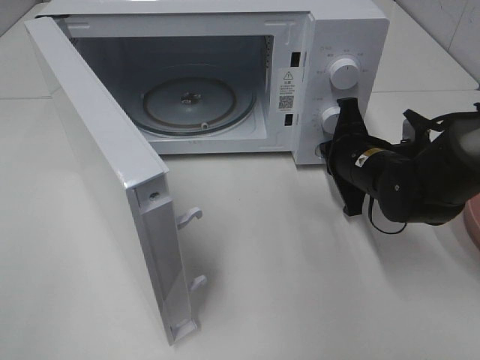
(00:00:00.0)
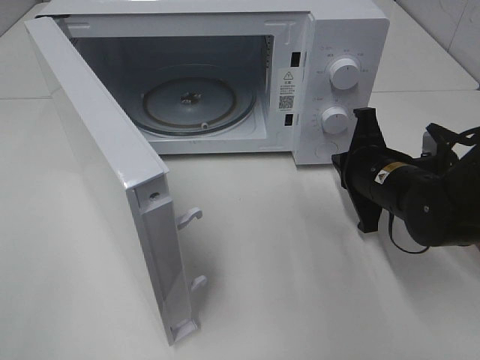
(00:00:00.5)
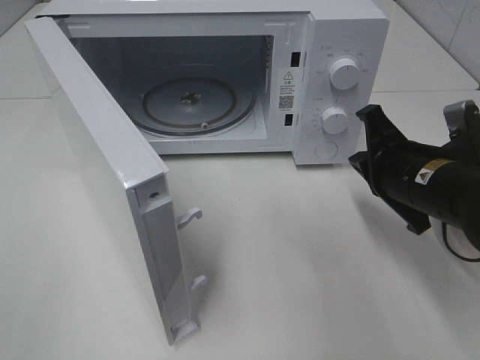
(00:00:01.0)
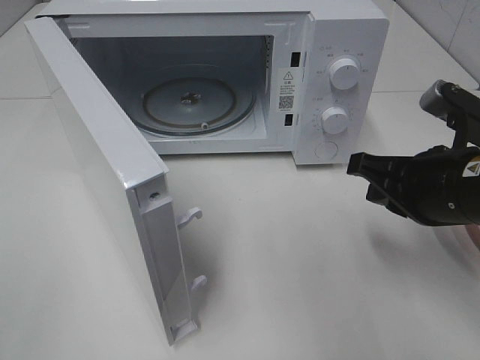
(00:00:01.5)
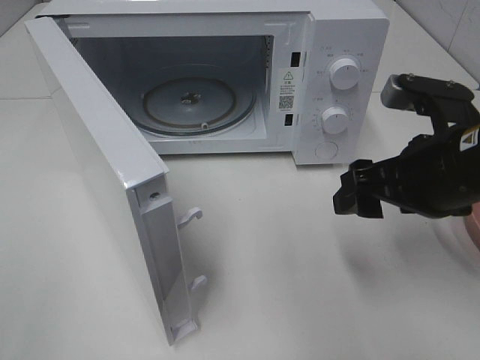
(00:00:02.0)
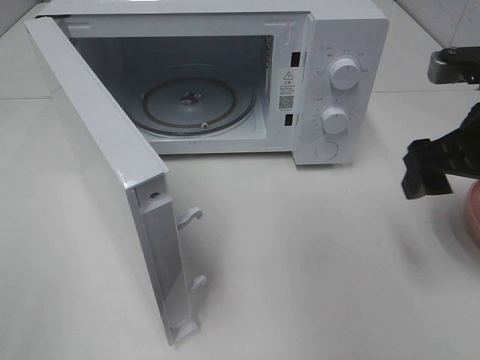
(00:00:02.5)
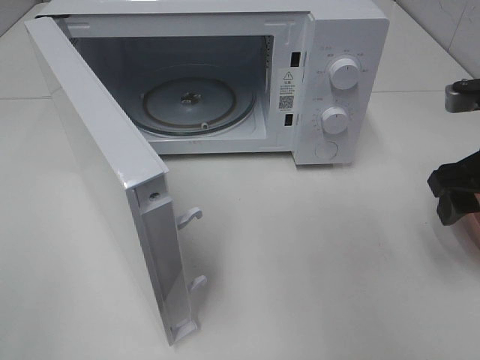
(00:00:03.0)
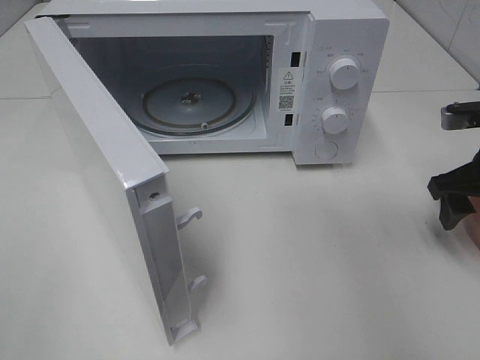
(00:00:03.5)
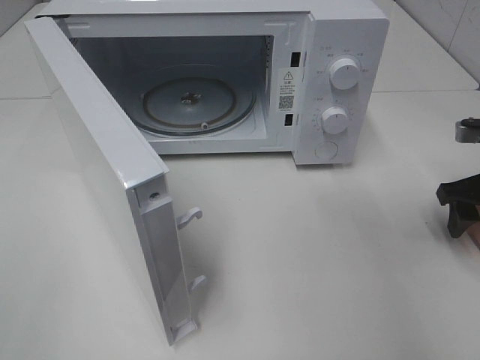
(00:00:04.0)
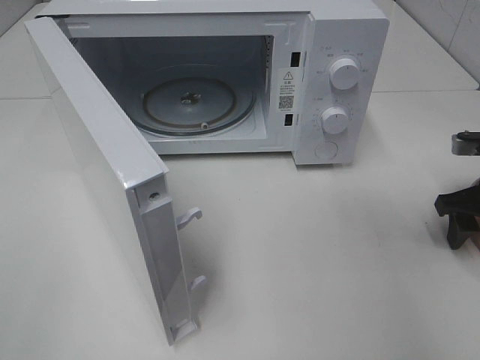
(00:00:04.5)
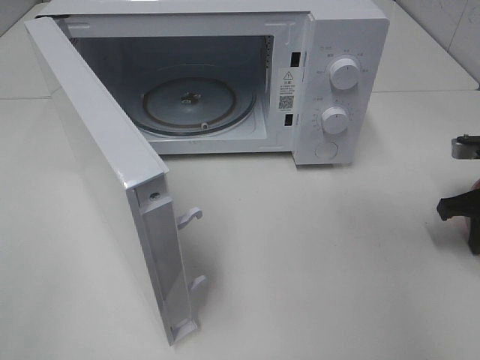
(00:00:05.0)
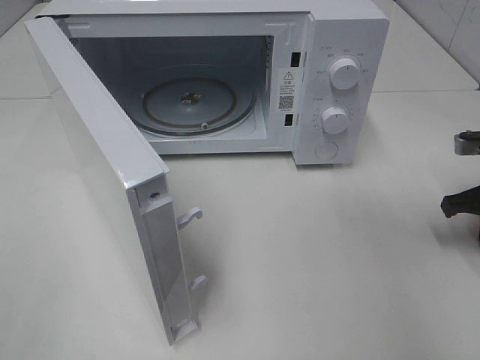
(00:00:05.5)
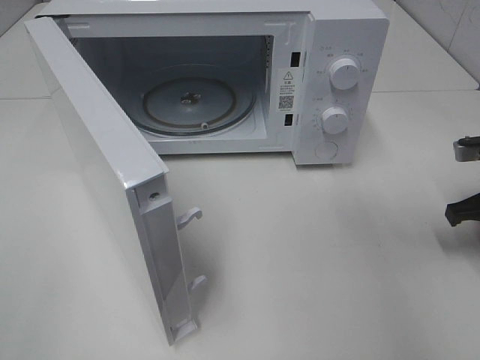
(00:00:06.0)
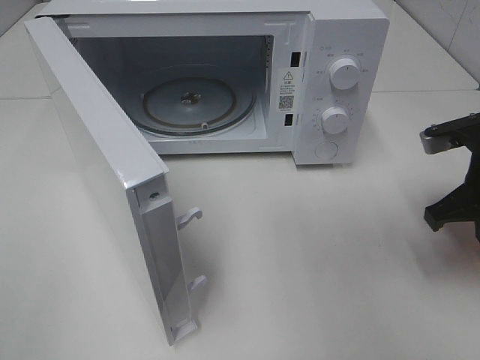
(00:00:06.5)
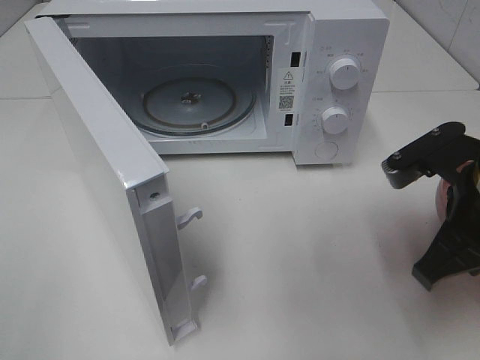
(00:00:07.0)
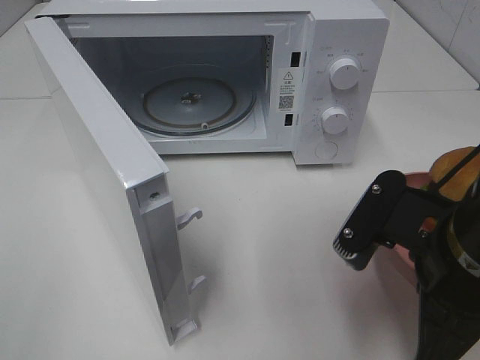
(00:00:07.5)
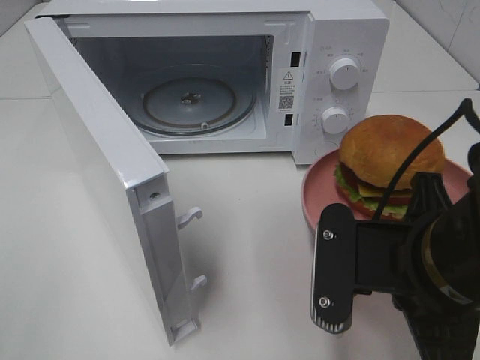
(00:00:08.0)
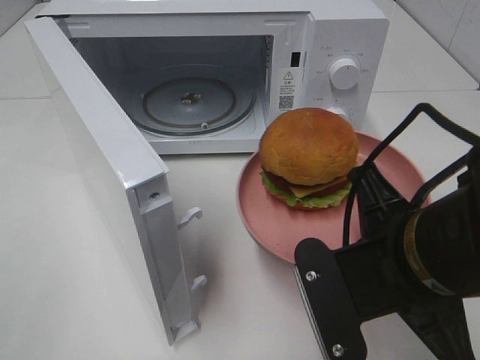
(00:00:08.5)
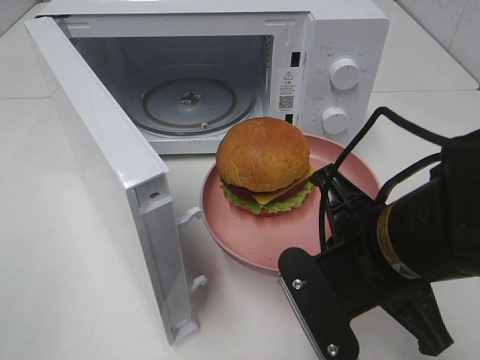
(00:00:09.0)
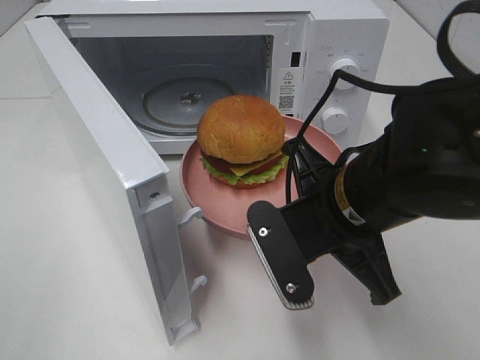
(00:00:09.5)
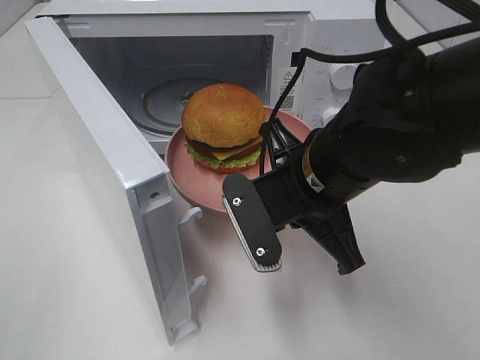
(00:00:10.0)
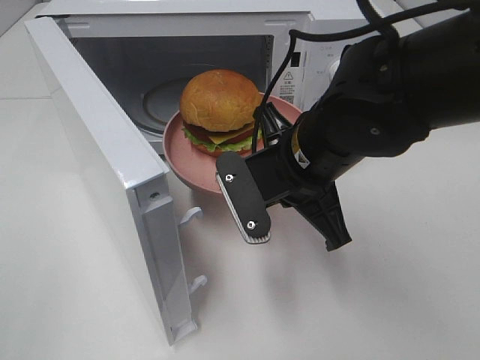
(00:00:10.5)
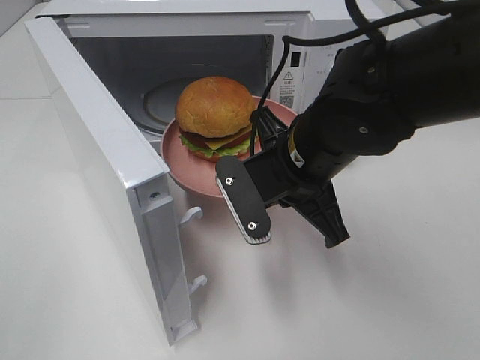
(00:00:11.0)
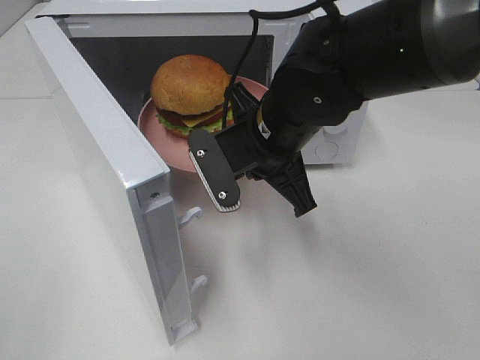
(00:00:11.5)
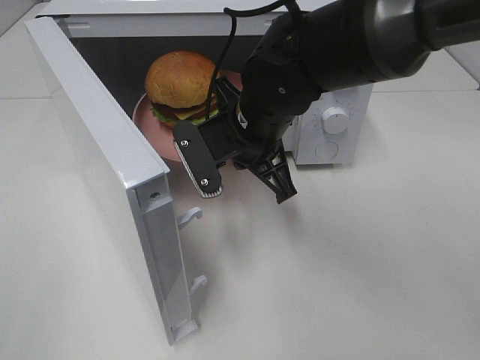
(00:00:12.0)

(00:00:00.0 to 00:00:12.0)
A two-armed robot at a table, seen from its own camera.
Task of the whole recording: Heat the burger.
Step, 00:00:01.0 - 00:00:05.5: Right hand: grab the plate with the hamburger.
00:00:00.0 - 00:00:02.0: The right gripper heads upward and backward, covering some 15 cm, and opens its fingers.
00:00:02.0 - 00:00:04.0: The right gripper moves to the right, forward and downward, some 15 cm.
00:00:04.0 - 00:00:06.0: The right gripper closes its fingers.
00:00:06.0 - 00:00:08.0: The right gripper moves to the left and backward, roughly 25 cm.
00:00:08.0 - 00:00:10.0: The right gripper shifts some 10 cm forward and to the left.
00:00:10.0 - 00:00:12.0: The right gripper goes about 10 cm forward.

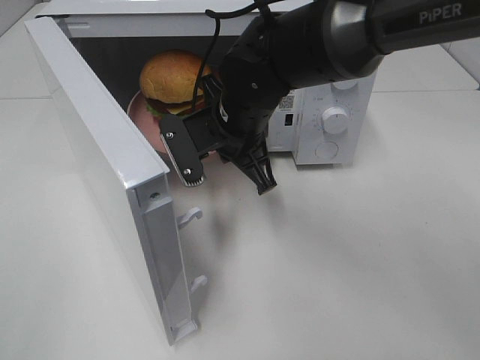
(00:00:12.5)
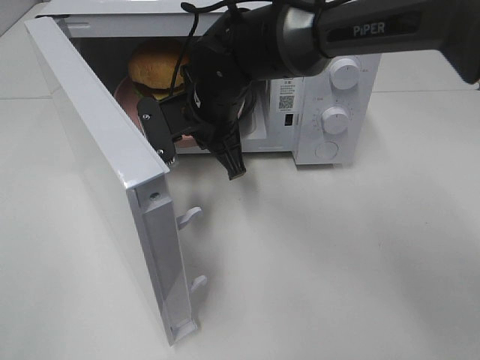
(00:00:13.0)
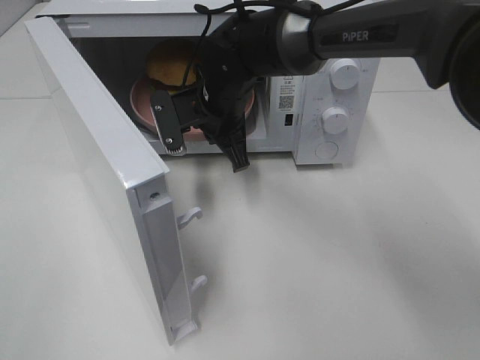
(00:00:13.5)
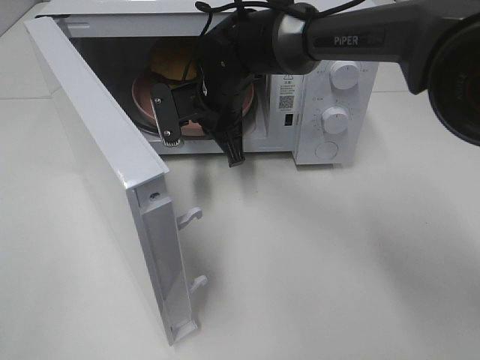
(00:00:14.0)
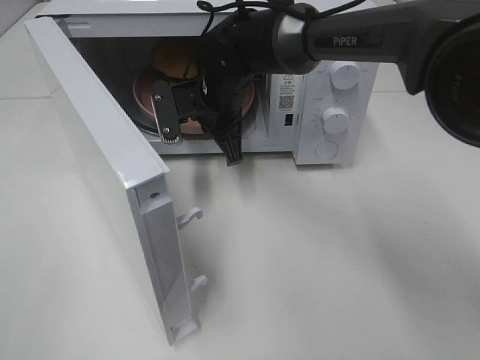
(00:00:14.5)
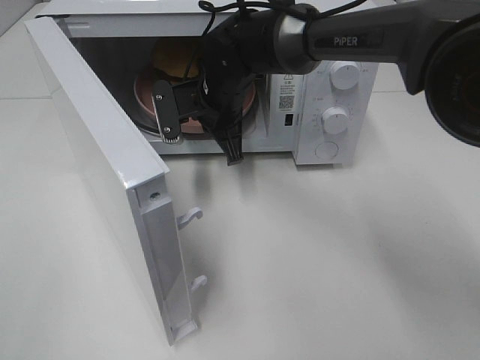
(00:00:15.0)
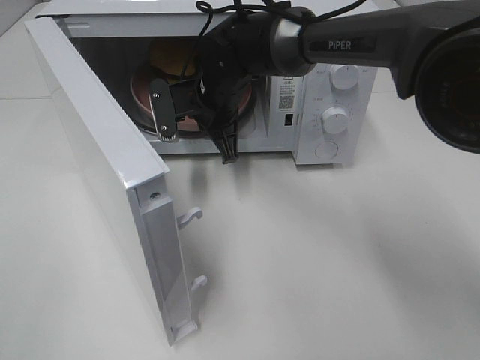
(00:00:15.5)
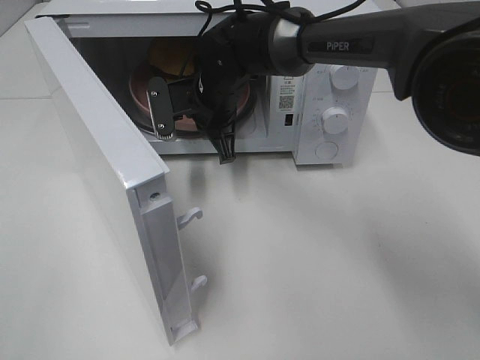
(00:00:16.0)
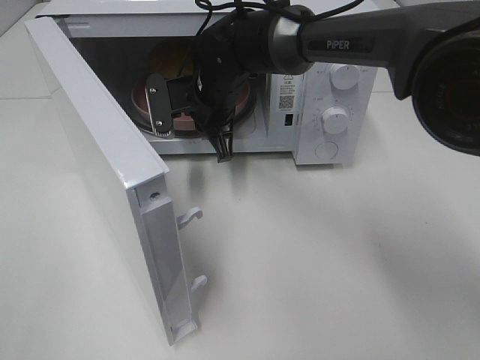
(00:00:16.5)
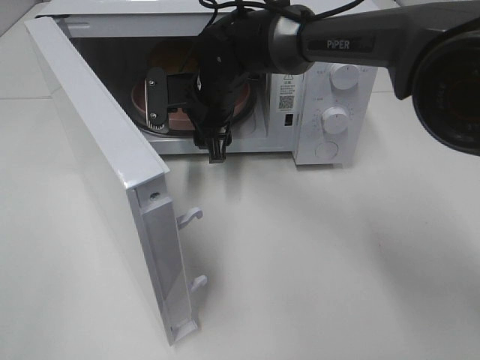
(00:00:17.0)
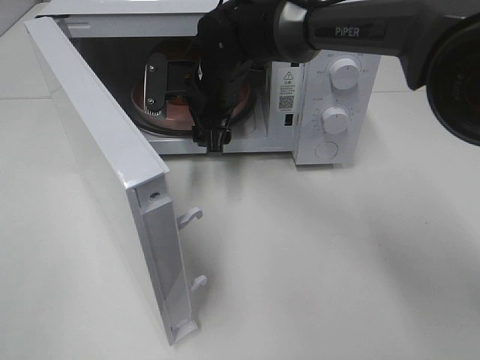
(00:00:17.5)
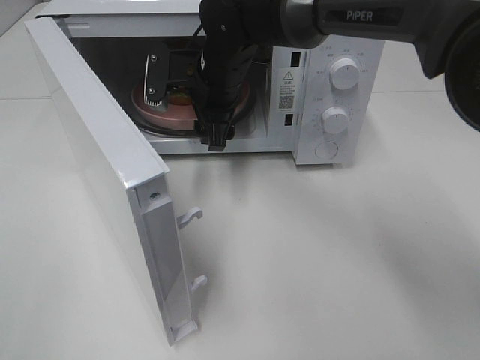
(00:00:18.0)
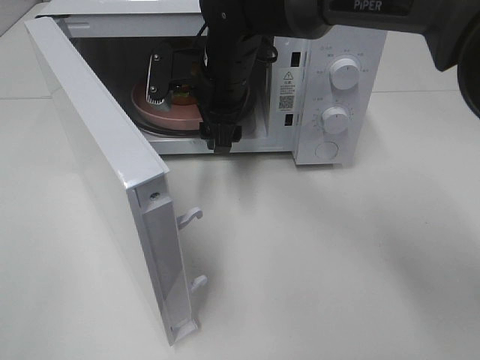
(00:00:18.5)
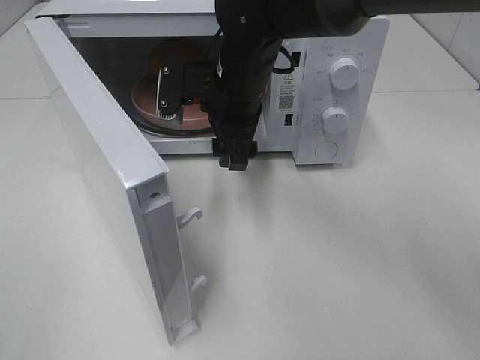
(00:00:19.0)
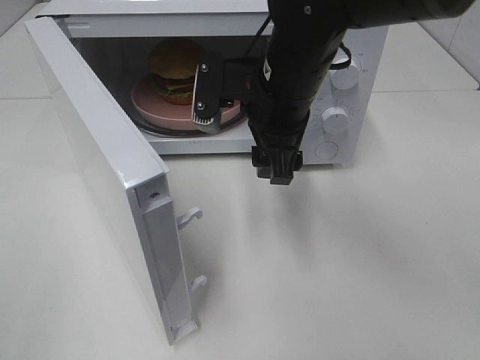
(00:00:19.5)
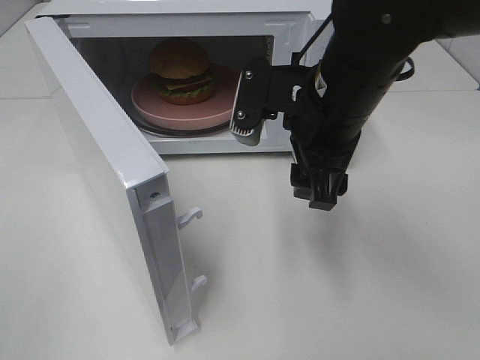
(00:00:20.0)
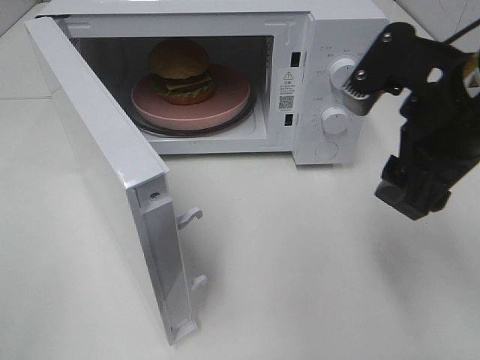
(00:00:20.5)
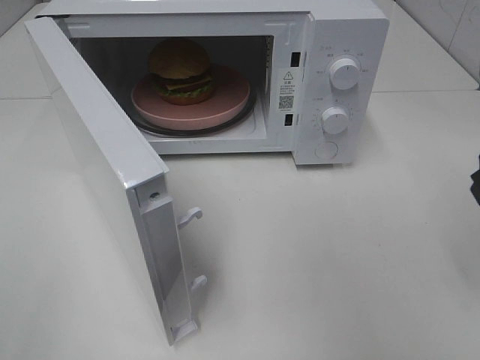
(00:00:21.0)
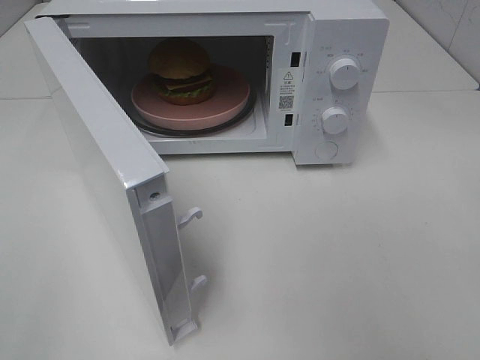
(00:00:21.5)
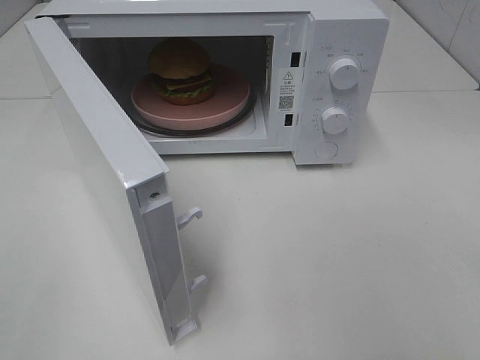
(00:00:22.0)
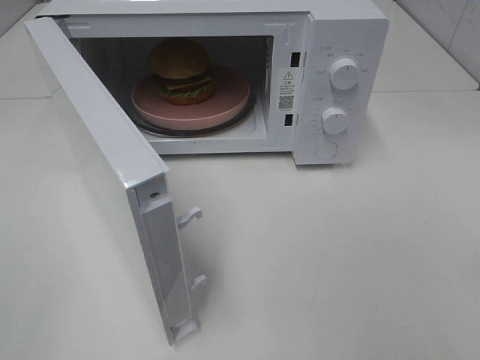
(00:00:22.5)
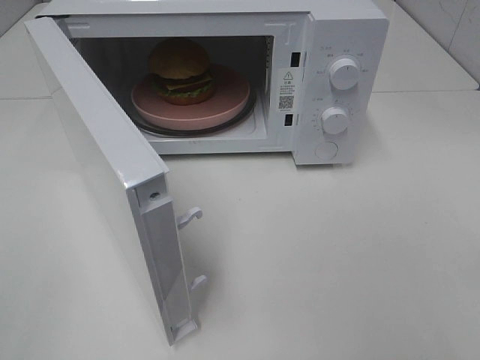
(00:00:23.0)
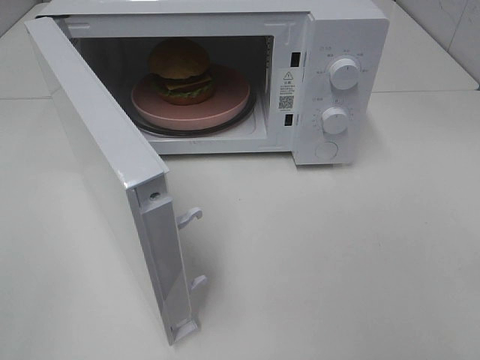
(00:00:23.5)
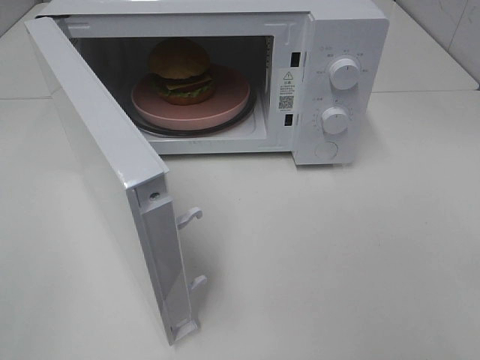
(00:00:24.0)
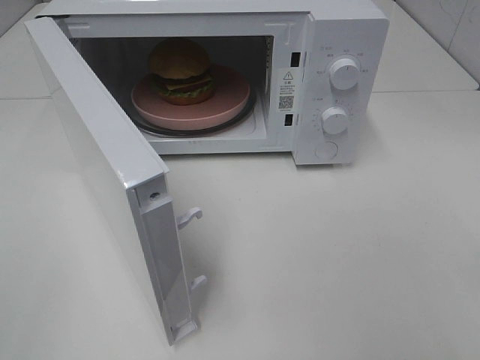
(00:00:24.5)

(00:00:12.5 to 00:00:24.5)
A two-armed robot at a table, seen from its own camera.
Task of the whole recording: Heat the burger.
Step, 00:00:12.5 - 00:00:17.0: Right hand: place the plate in the microwave.
00:00:12.5 - 00:00:14.5: The right gripper goes about 10 cm forward.
00:00:14.5 - 00:00:16.5: The two grippers keep their place.
00:00:16.5 - 00:00:18.5: The right gripper opens its fingers.
00:00:18.5 - 00:00:20.5: The right gripper moves to the right and backward, approximately 25 cm.
00:00:20.5 - 00:00:22.5: The right gripper goes roughly 25 cm backward and to the right.
00:00:22.5 - 00:00:24.5: The two grippers keep their place.

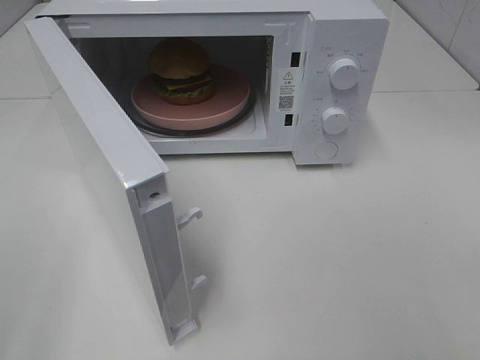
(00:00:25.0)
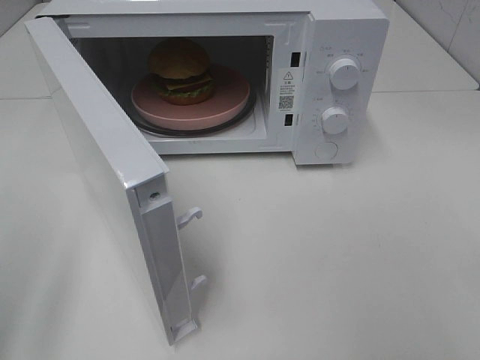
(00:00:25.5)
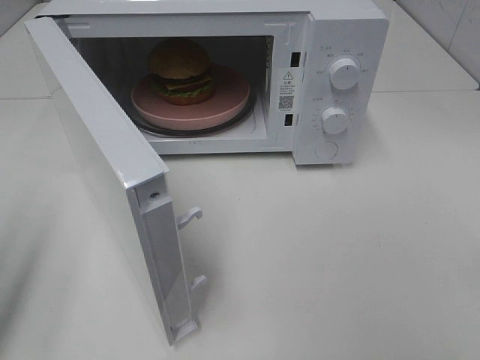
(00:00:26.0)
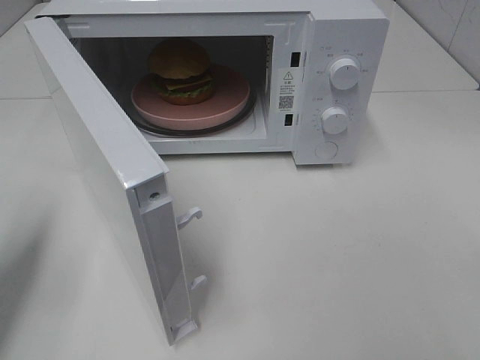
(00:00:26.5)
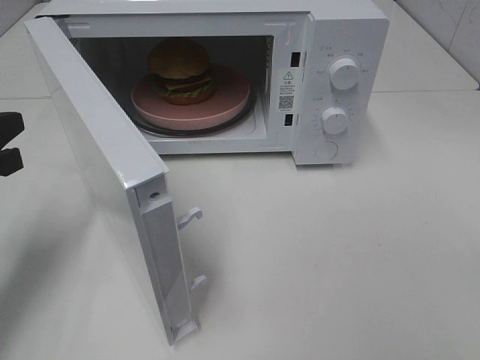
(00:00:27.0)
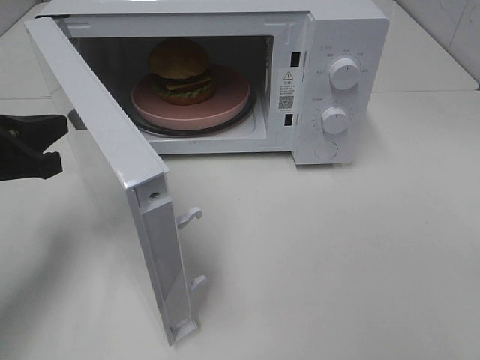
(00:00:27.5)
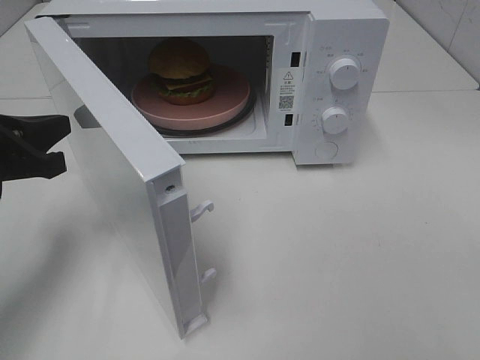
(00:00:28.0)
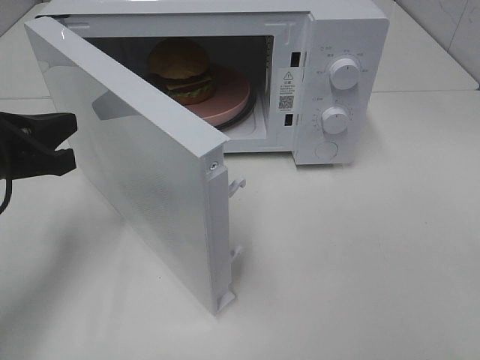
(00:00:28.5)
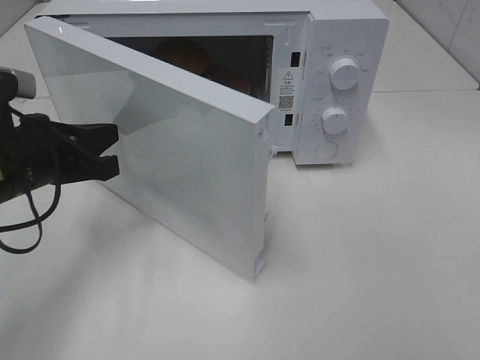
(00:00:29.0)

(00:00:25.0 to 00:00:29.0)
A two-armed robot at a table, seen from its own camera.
Task of the whole recording: Heat the burger.
00:00:25.0 - 00:00:27.0: The left gripper goes roughly 25 cm forward and downward, and closes.
00:00:27.0 - 00:00:29.0: The left gripper heads to the right, covering approximately 10 cm.
